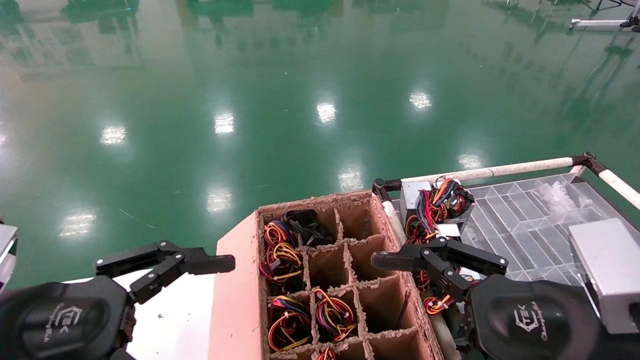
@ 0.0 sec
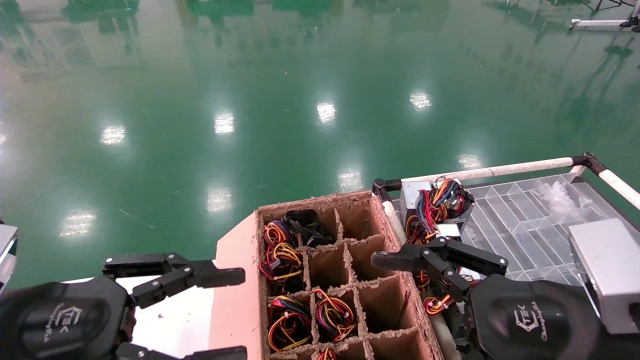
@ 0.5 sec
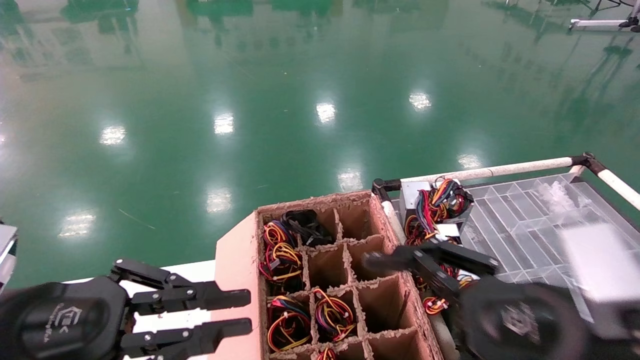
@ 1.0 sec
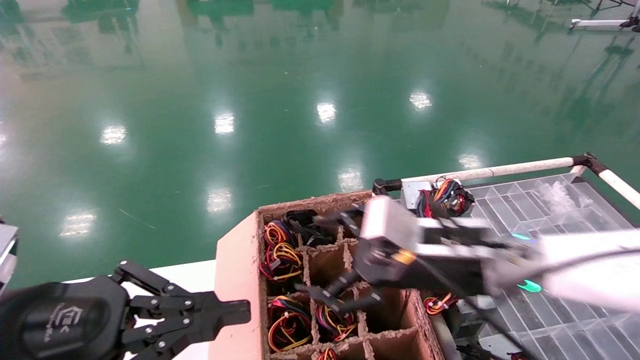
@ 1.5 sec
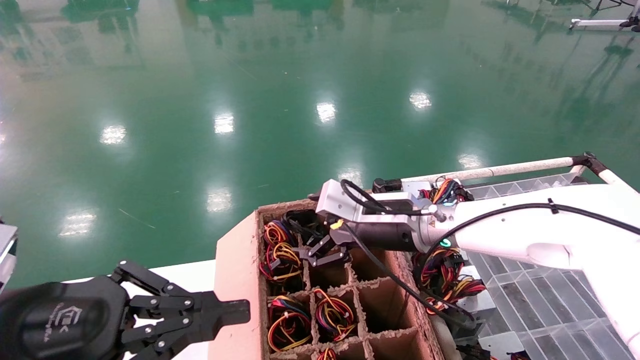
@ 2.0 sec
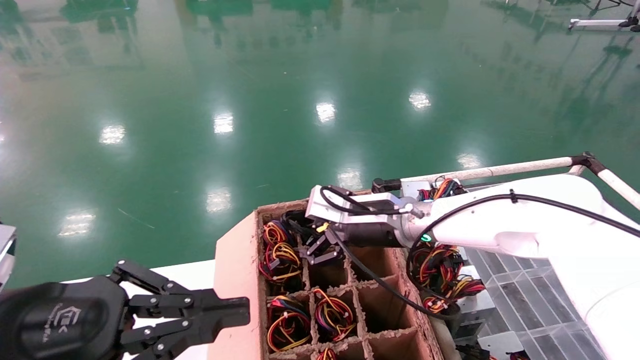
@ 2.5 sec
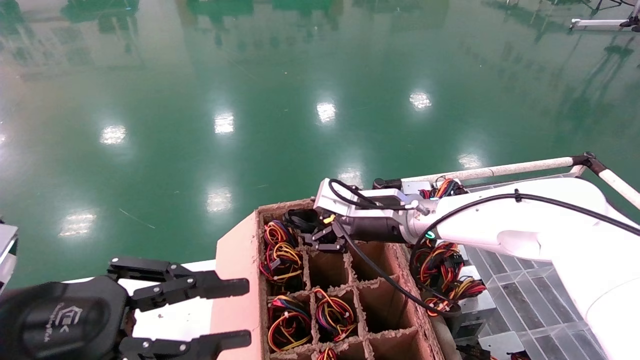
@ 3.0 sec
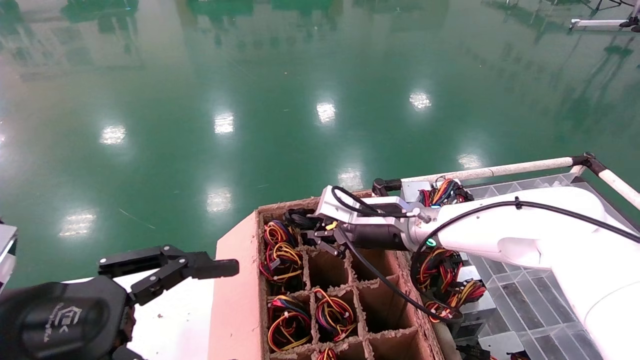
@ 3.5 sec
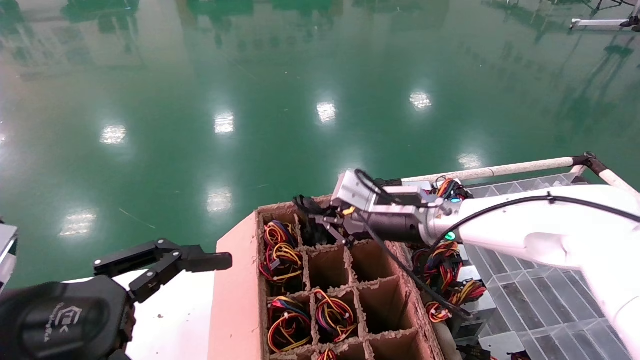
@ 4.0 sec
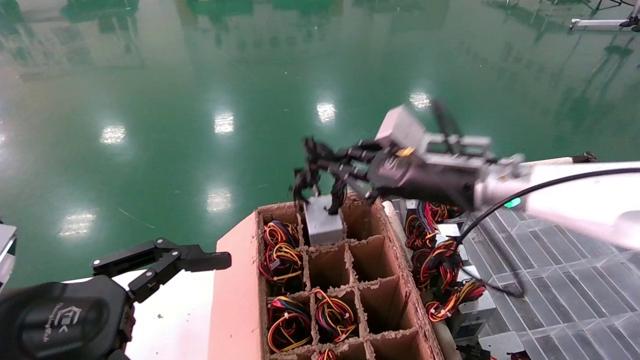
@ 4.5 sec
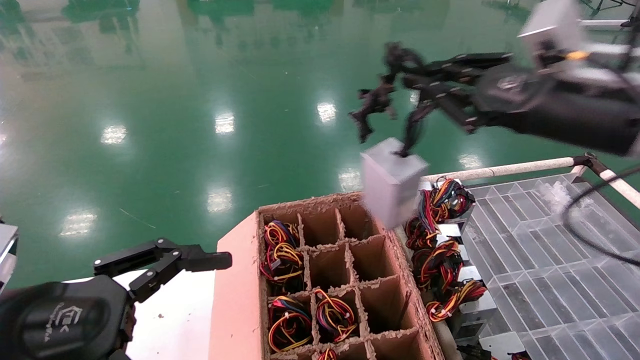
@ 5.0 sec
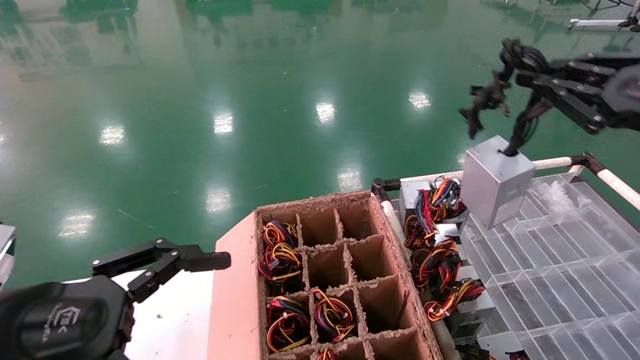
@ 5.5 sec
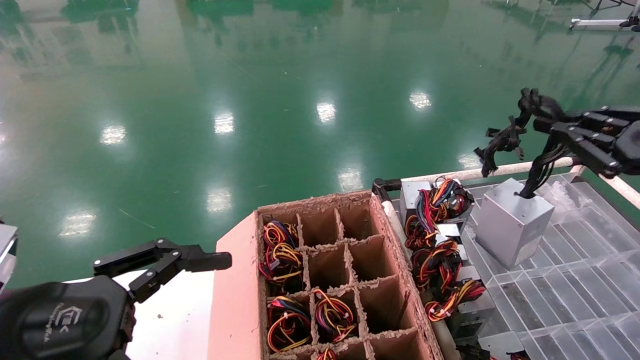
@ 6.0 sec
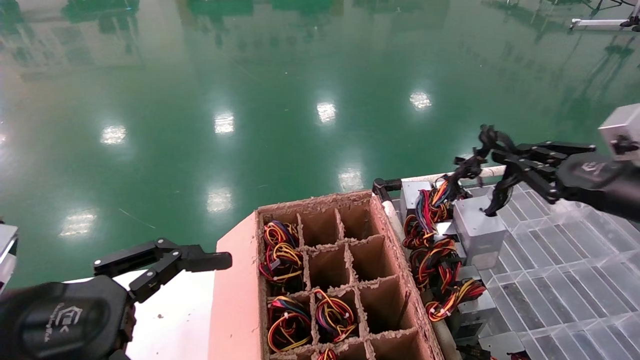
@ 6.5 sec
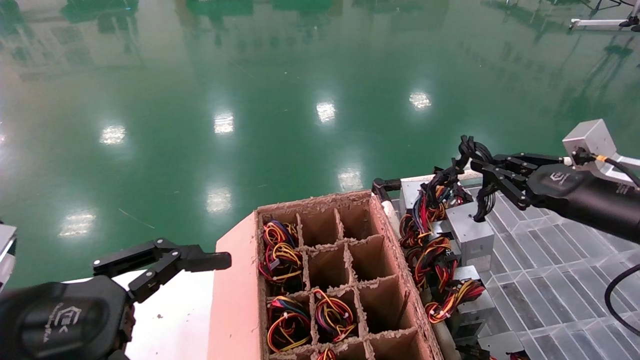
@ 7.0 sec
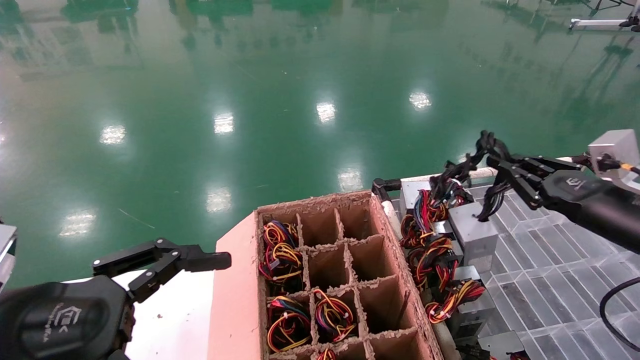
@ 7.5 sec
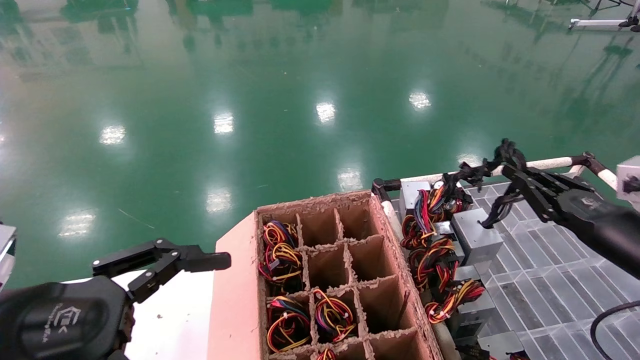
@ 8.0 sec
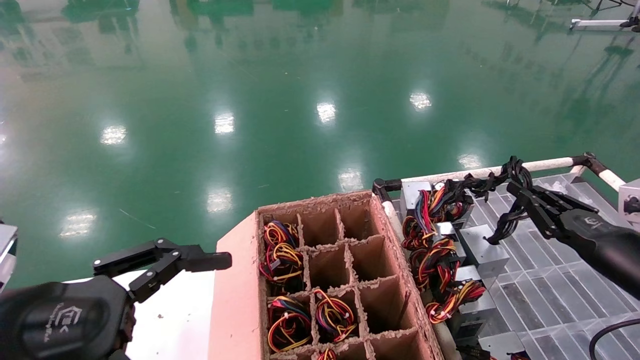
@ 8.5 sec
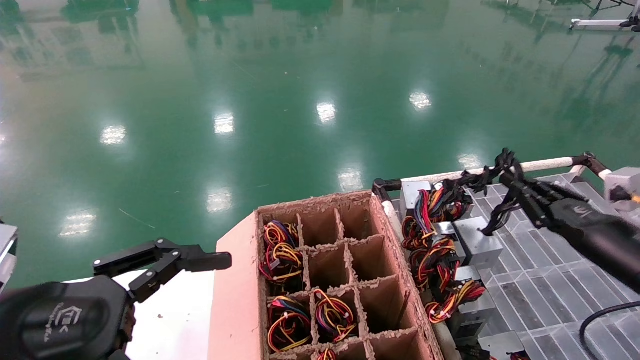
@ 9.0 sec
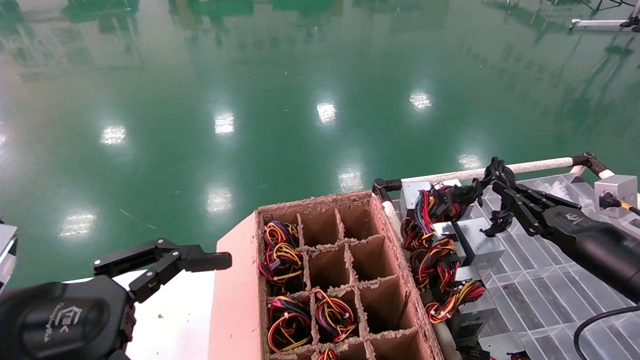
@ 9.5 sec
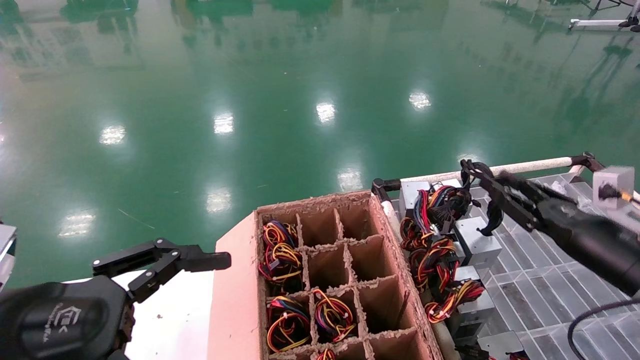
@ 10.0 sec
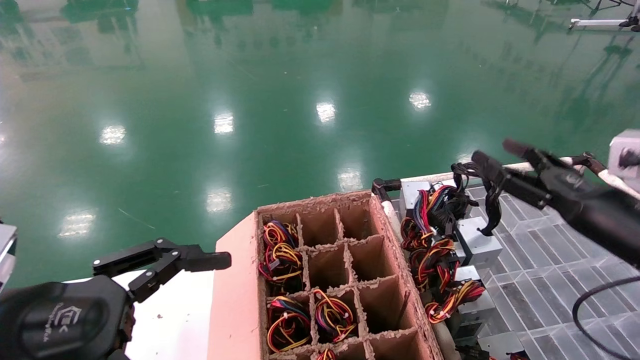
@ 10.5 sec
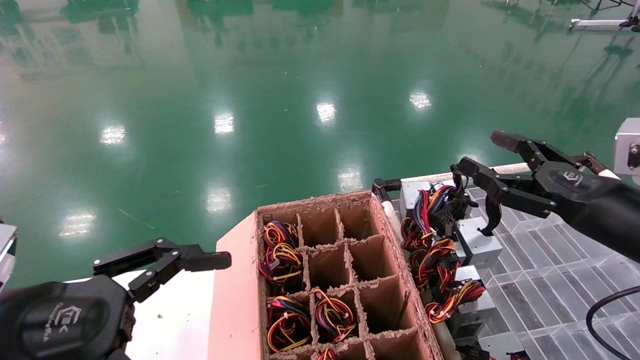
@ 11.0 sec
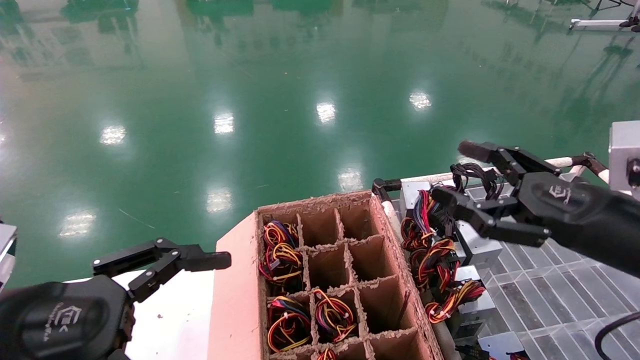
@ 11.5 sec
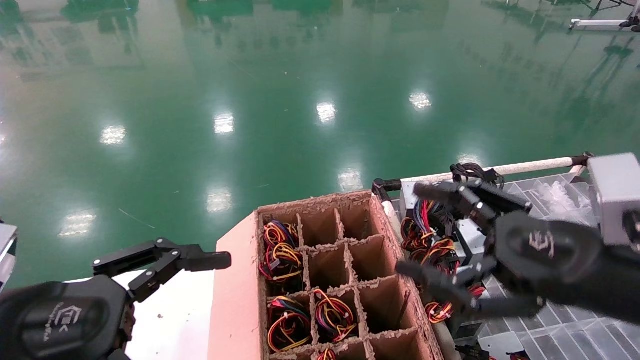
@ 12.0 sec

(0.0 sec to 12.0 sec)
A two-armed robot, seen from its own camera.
Step, 1.5 sec - 3.5 sec: Grab and lift the power supply from the large box.
Step, 4.0 sec - 10.0 sec: Place the power supply on the operating table.
0.0 sec - 2.0 sec: The right gripper shifts roughly 25 cm forward and to the left. Meanwhile the left gripper closes.
2.0 sec - 4.0 sec: The right gripper closes up, while the left gripper opens its fingers.
4.0 sec - 6.0 sec: The right gripper is displaced to the right and backward by approximately 30 cm.
6.0 sec - 8.0 sec: The right gripper shifts some 15 cm downward and forward.
8.0 sec - 10.0 sec: There are only small adjustments of the grippers.
10.0 sec - 12.0 sec: The right gripper is displaced backward, to the left and upward by about 20 cm, and opens.
